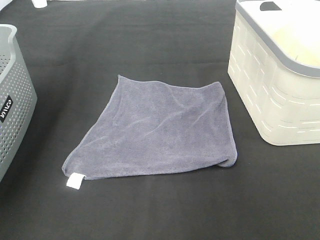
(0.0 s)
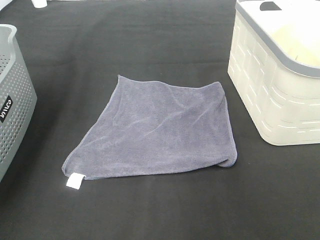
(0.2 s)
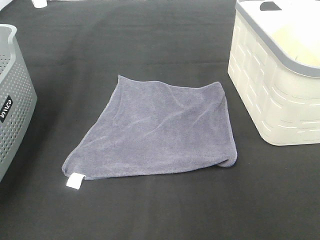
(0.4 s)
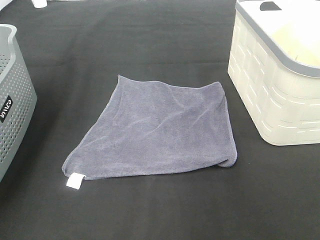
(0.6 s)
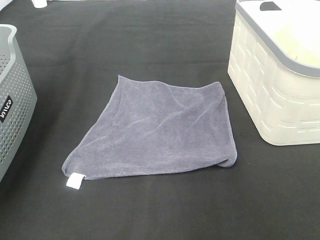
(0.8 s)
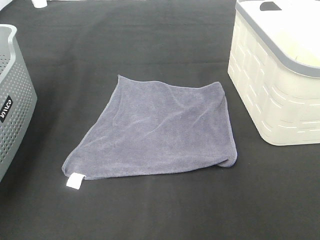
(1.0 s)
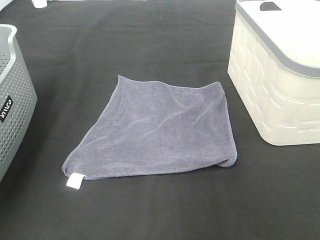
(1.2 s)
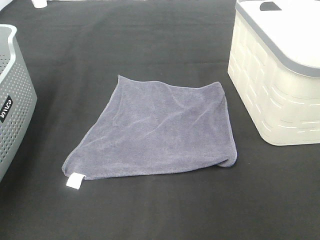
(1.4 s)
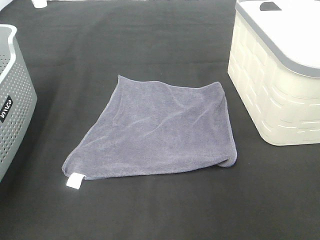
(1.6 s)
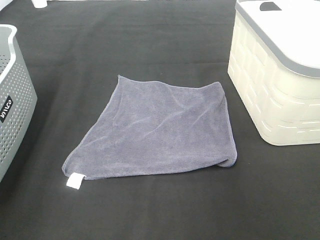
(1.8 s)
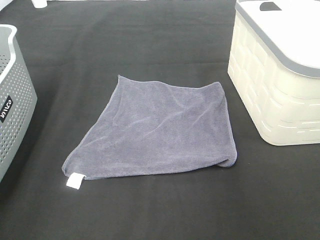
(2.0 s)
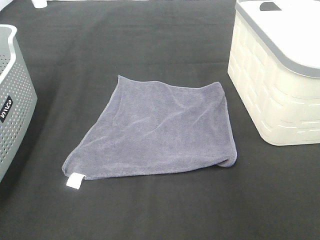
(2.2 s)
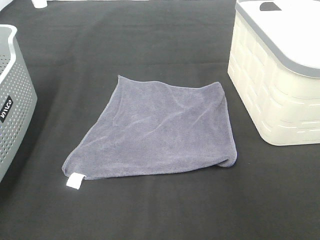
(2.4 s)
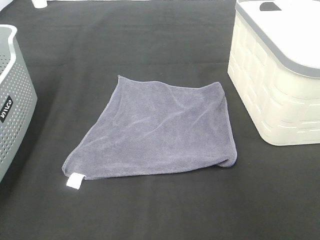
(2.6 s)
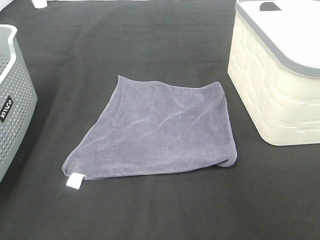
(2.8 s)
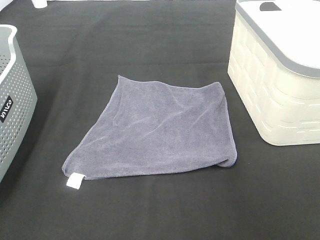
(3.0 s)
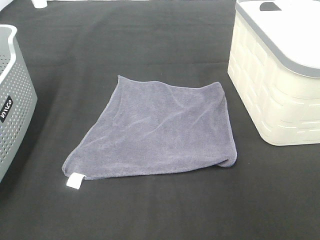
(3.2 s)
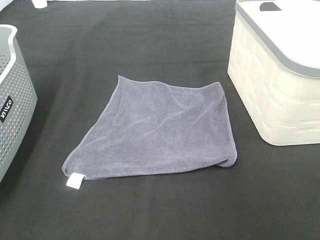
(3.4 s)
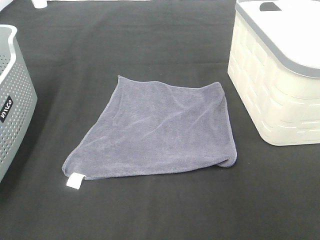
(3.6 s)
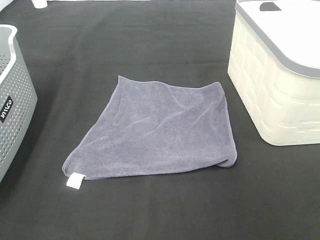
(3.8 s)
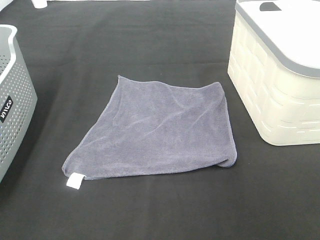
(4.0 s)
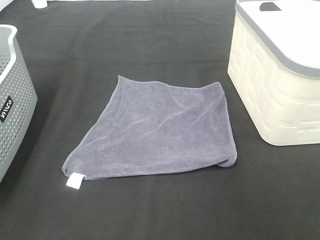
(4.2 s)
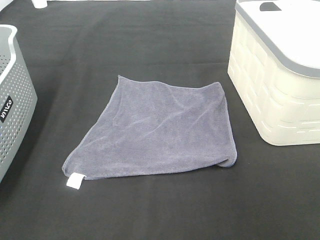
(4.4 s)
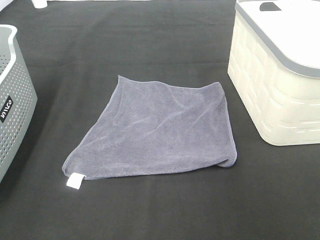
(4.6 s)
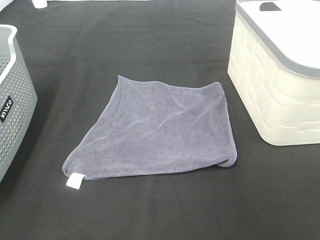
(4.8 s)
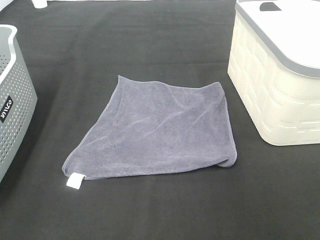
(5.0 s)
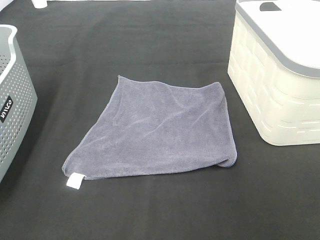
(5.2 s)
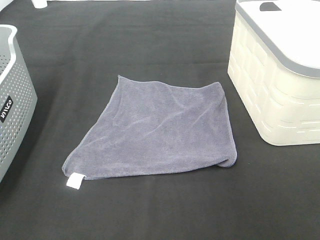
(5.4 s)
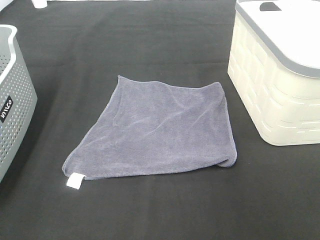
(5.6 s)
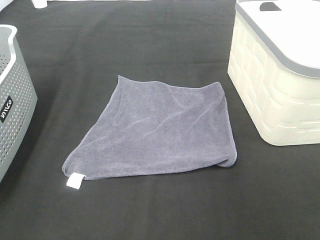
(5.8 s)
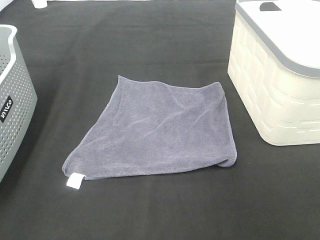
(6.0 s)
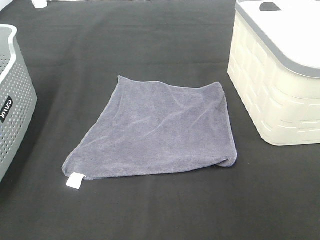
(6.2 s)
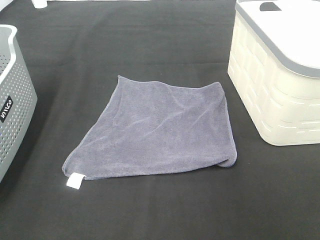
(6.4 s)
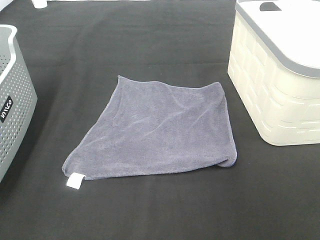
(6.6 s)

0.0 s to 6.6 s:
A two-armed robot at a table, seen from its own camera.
Task of the whole recording: Remove the towel and place it.
0.0 to 1.6 s: The right gripper shifts some 20 cm backward. Meanwhile the left gripper goes approximately 20 cm backward and downward.
5.0 to 6.6 s: The two grippers keep their place.

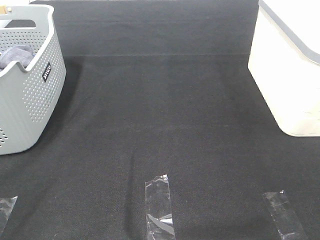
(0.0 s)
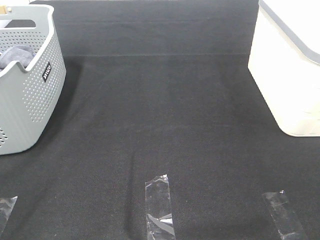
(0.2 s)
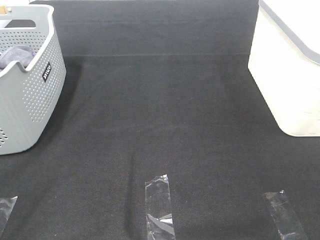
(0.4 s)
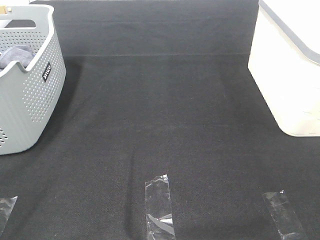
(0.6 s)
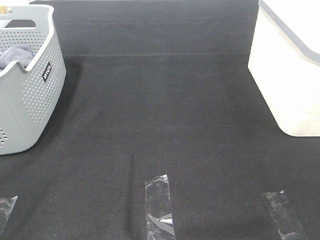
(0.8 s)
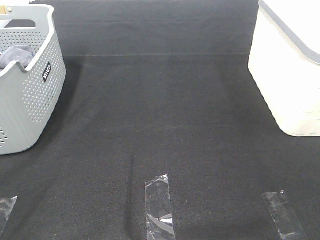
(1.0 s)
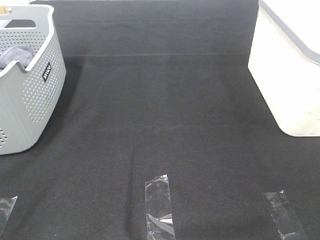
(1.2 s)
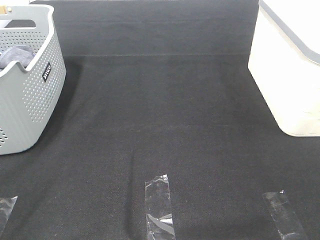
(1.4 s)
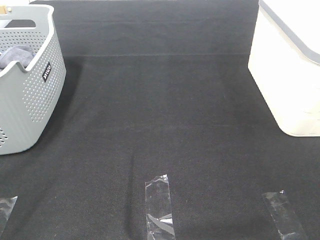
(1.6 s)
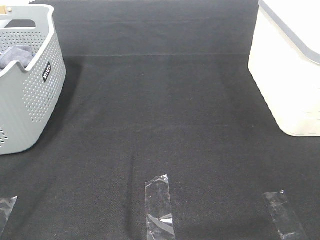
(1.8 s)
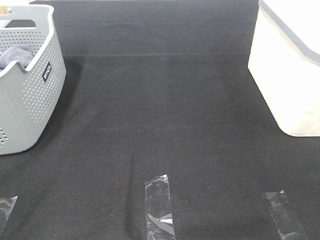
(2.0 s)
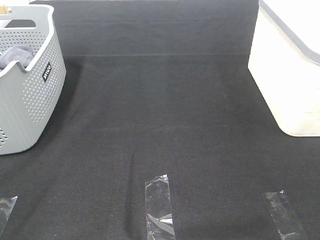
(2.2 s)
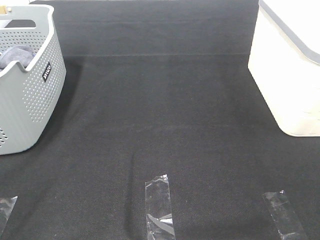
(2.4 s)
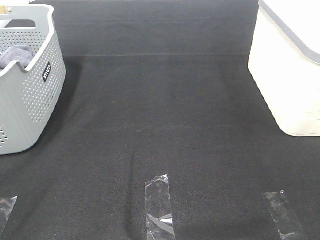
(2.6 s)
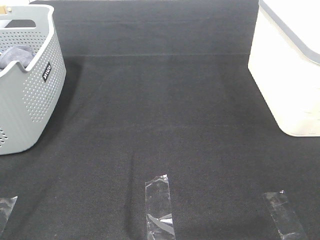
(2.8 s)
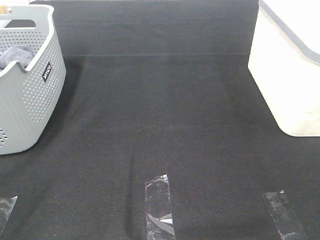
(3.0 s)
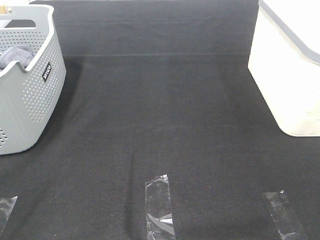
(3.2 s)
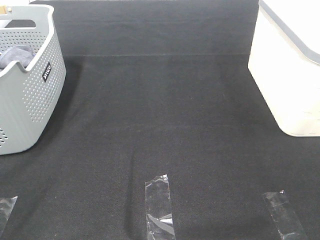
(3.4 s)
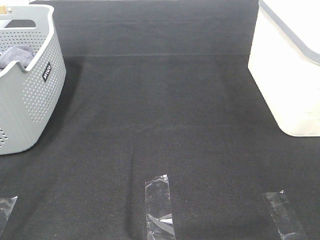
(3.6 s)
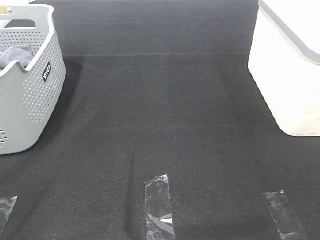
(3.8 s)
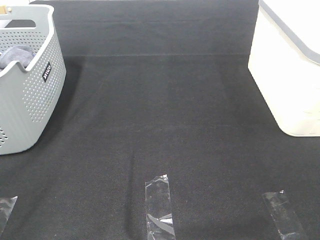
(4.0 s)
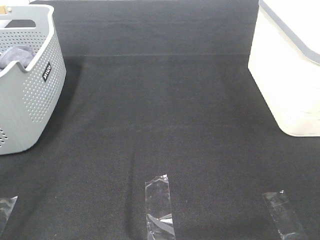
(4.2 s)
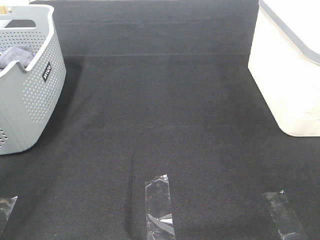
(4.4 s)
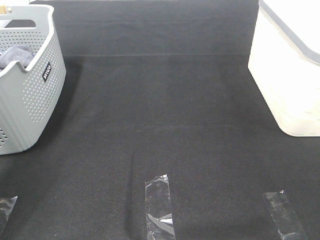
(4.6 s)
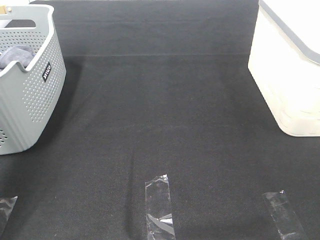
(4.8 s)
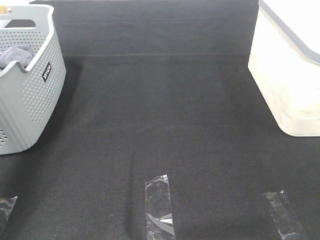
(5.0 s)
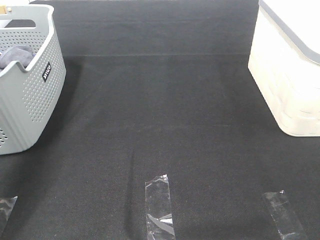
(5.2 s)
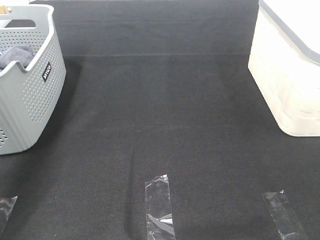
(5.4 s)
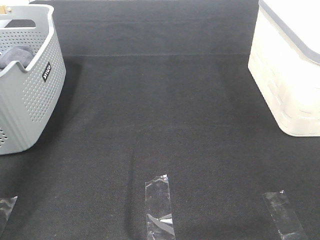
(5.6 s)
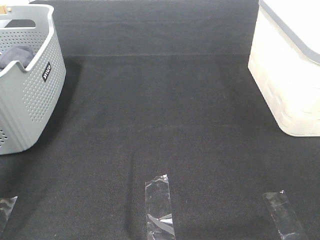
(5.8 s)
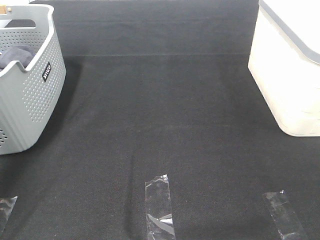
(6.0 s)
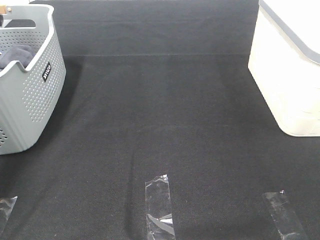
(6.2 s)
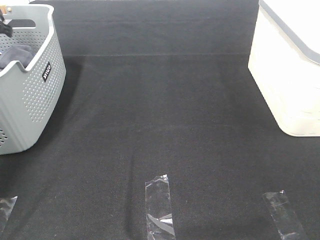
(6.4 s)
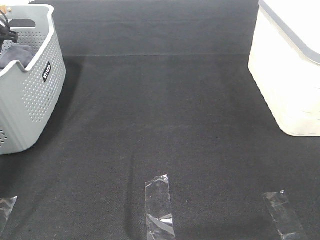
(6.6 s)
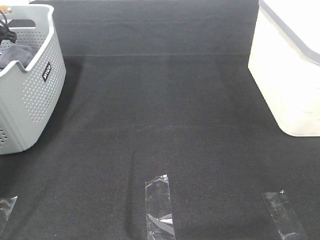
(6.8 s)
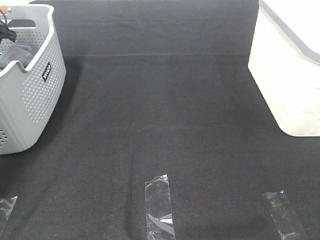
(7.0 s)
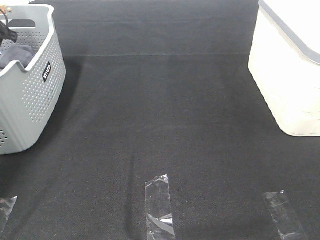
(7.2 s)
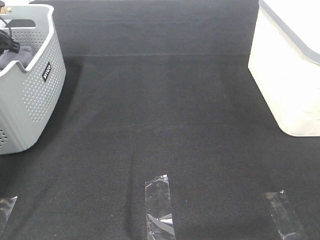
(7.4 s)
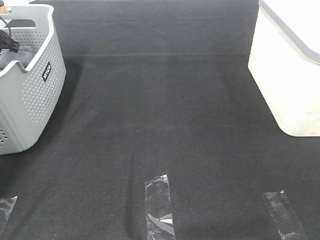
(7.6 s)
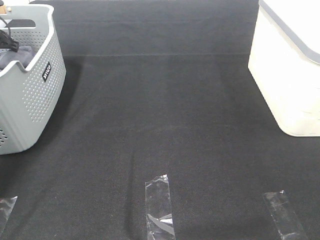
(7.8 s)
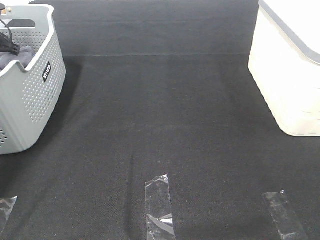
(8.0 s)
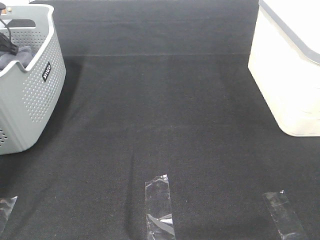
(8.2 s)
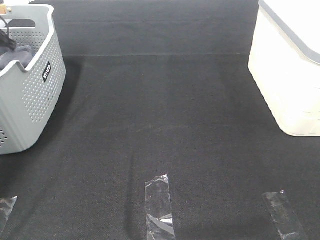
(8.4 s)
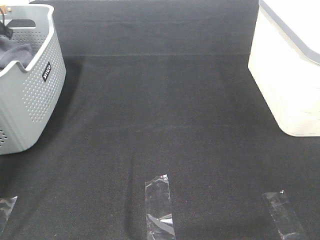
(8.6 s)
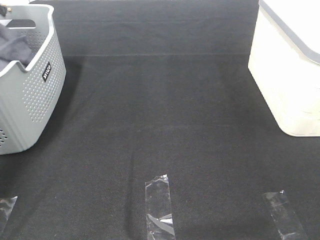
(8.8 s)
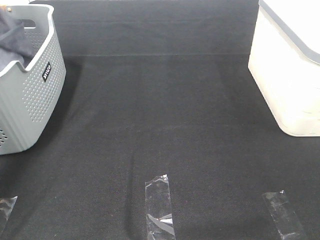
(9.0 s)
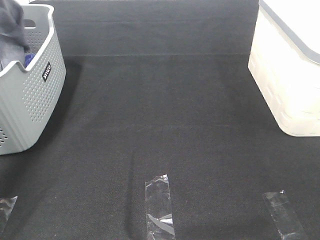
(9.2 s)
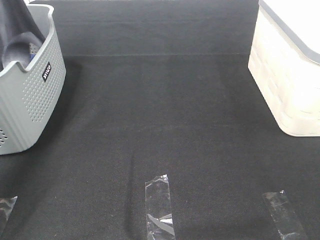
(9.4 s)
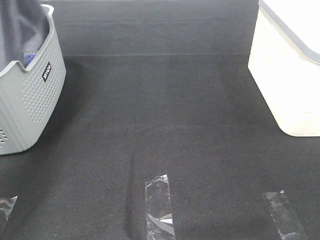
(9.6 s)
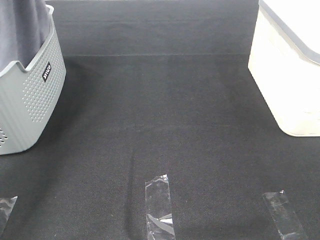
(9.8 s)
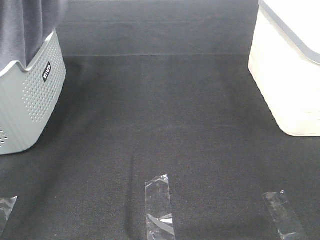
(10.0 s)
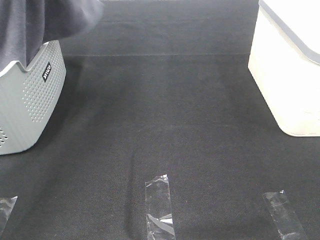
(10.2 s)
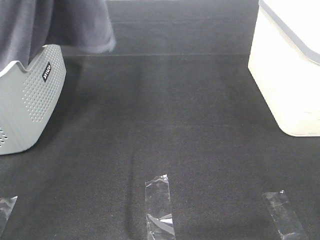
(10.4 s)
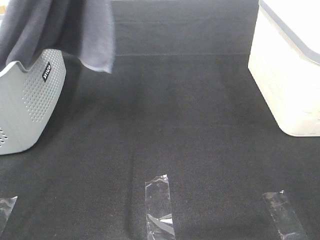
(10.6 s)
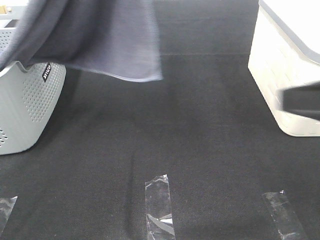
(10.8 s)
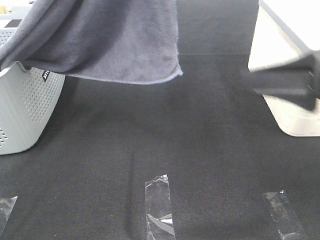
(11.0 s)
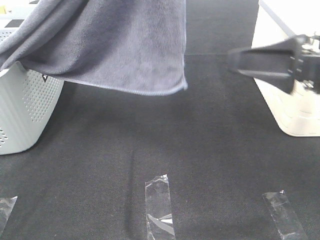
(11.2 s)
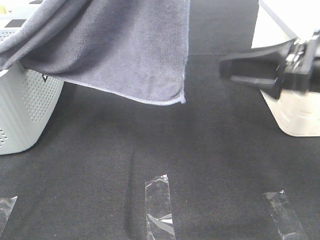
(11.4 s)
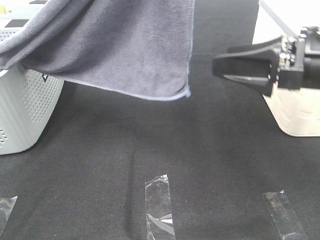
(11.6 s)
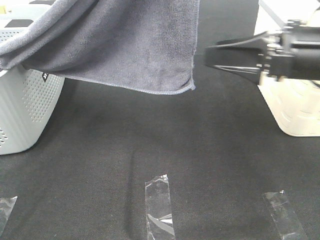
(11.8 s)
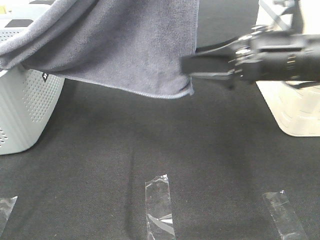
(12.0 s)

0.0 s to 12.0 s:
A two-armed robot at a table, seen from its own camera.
Task of the whole recording: Remove the towel and place it.
0.0 to 3.0 s: The two grippers keep their place.
4.4 to 6.0 s: The left gripper shifts some 40 cm forward.
6.0 to 7.6 s: The left gripper heads downward and forward, covering approximately 10 cm.
7.6 to 9.0 s: The left gripper heads upward, covering approximately 15 cm, and closes.
9.0 to 10.4 s: The left gripper heads to the right, upward and backward, covering roughly 35 cm.
10.4 to 12.0 s: The right gripper shifts roughly 25 cm forward and to the left, while the left gripper travels to the right and backward by roughly 15 cm.

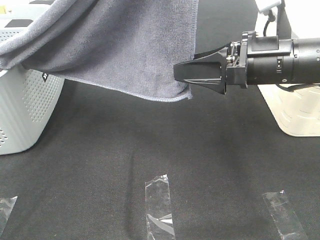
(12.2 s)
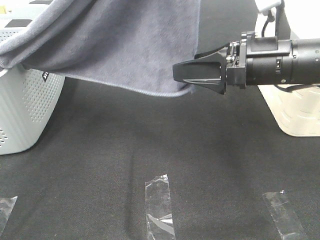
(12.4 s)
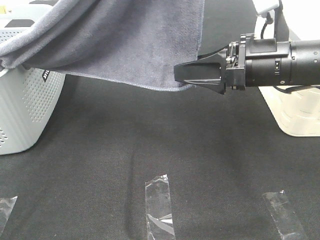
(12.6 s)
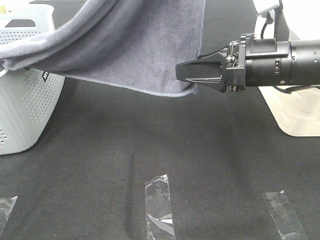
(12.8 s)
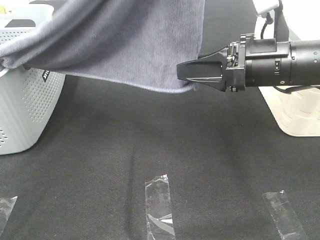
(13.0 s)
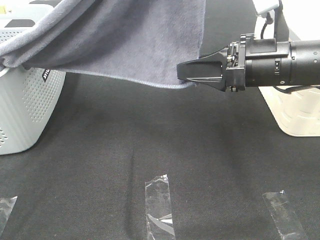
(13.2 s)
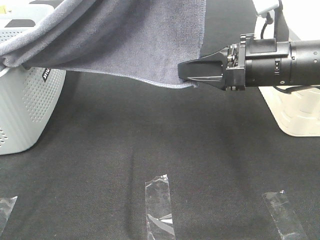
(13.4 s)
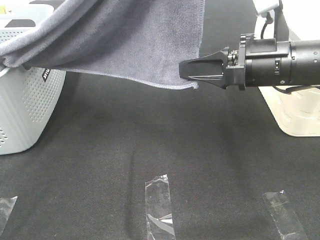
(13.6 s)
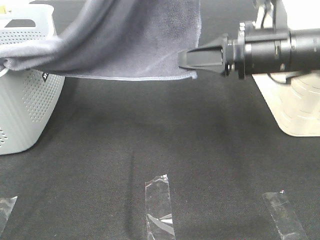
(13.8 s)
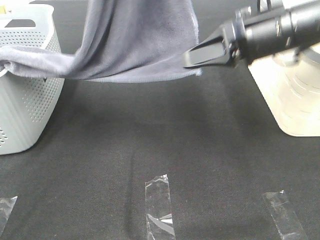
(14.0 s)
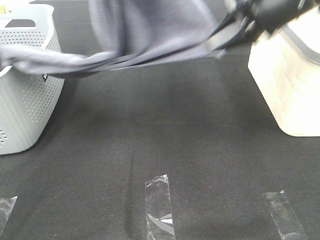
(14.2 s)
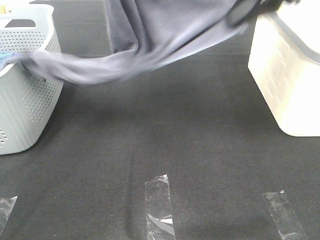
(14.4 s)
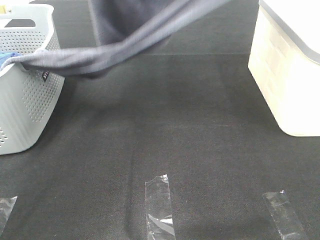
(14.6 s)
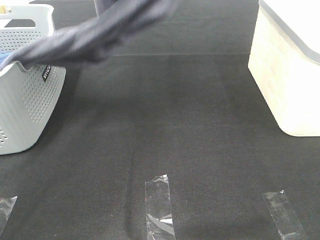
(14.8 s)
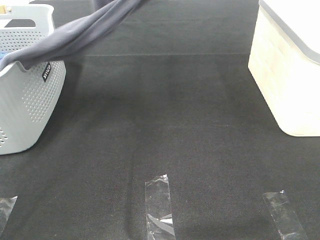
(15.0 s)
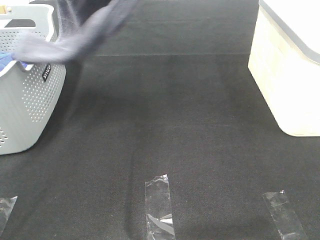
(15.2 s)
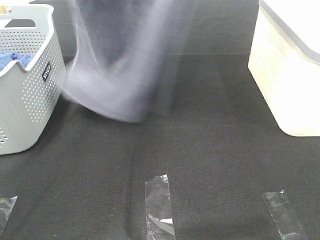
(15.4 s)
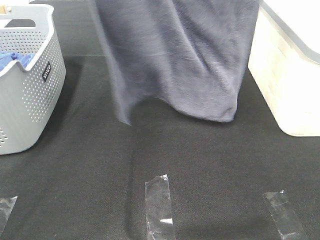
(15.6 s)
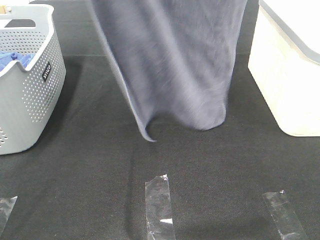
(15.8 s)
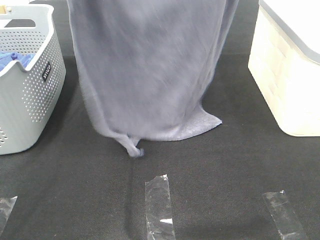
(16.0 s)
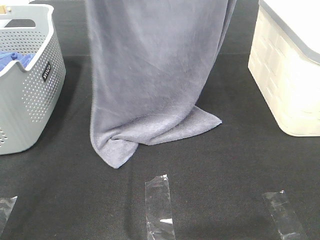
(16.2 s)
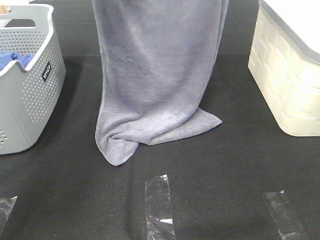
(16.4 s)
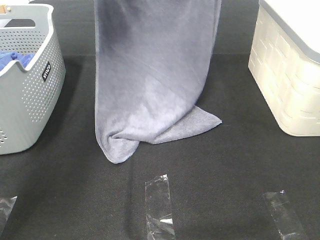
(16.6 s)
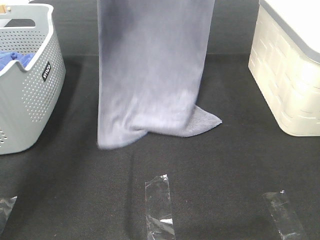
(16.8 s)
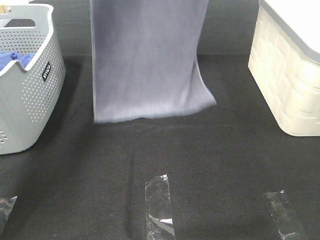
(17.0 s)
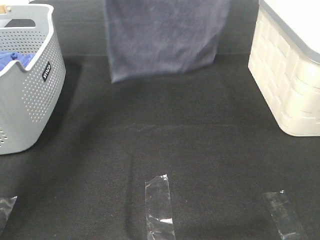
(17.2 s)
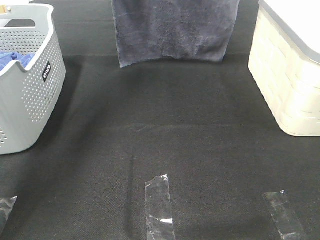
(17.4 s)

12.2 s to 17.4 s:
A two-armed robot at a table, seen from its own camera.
Task of the whole recording: Remove the towel and place it.
12.2 to 14.0 s: The right gripper ends up approximately 5 cm from where it was, and closes up, while the left gripper shifts about 5 cm forward.
14.0 to 15.6 s: The right gripper travels upward by some 30 cm; the left gripper heads to the left and upward, covering about 10 cm.
15.6 to 17.4 s: The two grippers go approximately 20 cm forward and downward.
